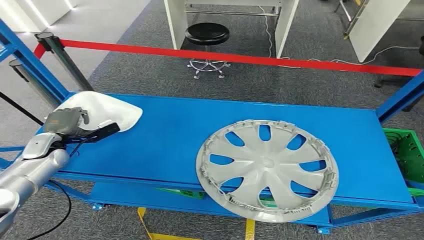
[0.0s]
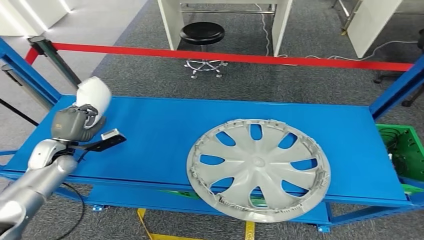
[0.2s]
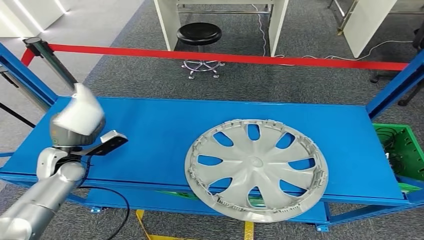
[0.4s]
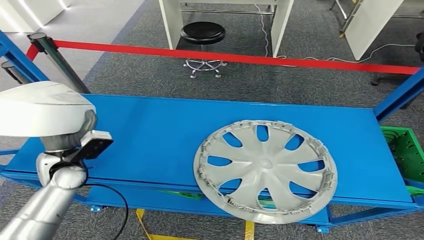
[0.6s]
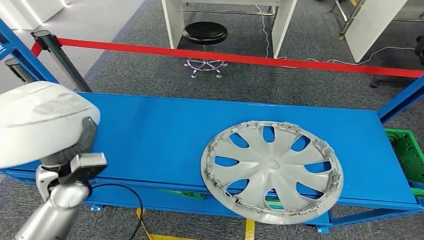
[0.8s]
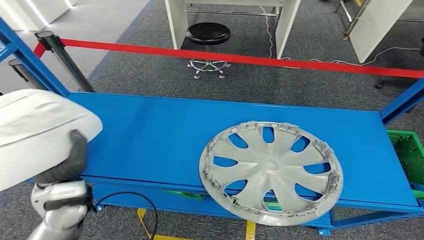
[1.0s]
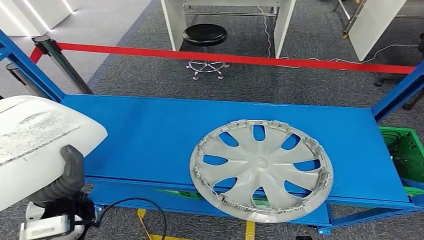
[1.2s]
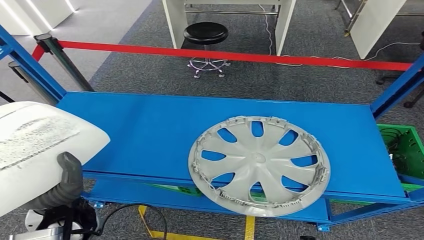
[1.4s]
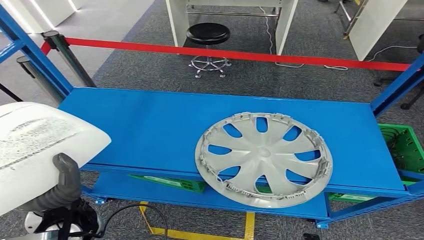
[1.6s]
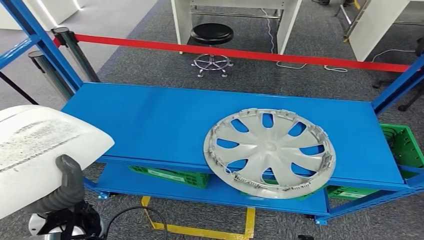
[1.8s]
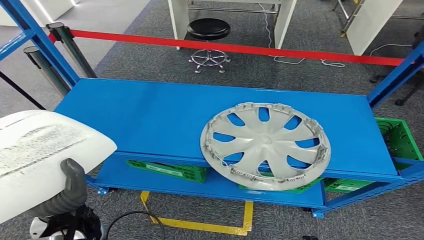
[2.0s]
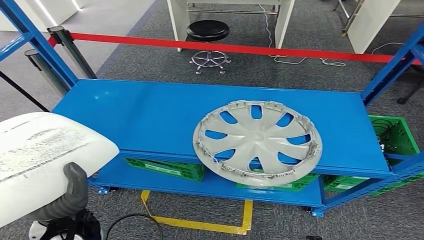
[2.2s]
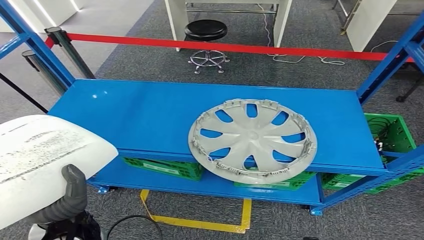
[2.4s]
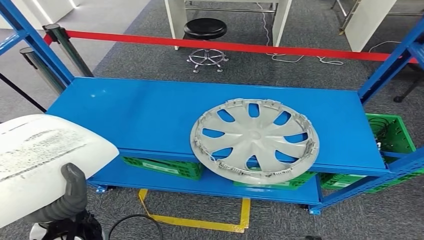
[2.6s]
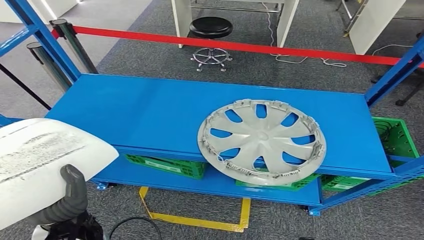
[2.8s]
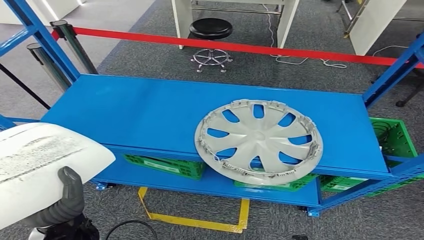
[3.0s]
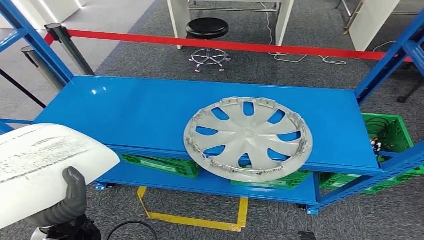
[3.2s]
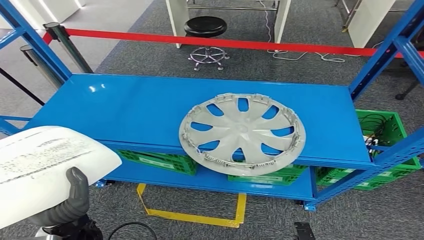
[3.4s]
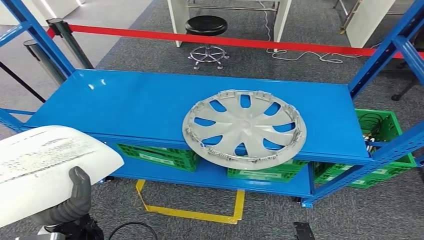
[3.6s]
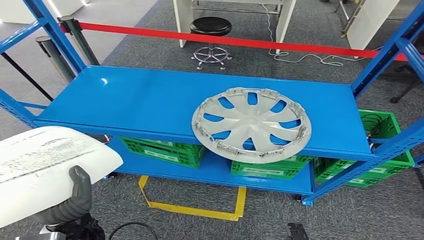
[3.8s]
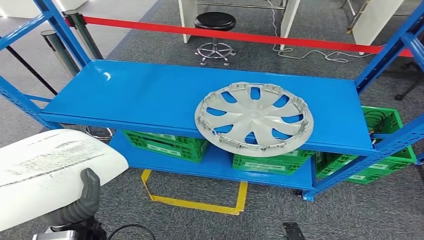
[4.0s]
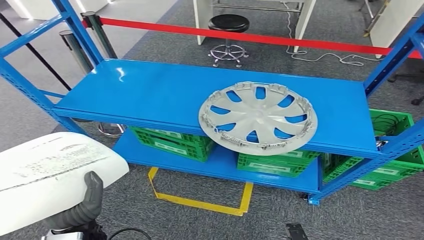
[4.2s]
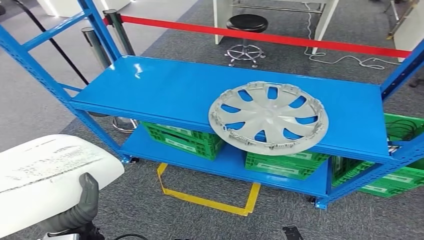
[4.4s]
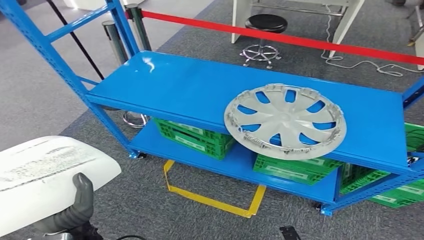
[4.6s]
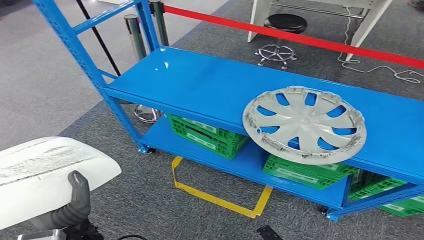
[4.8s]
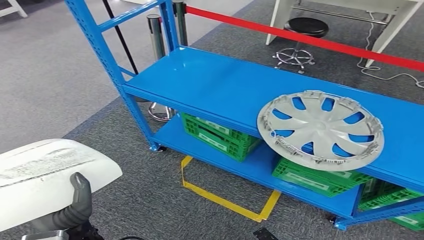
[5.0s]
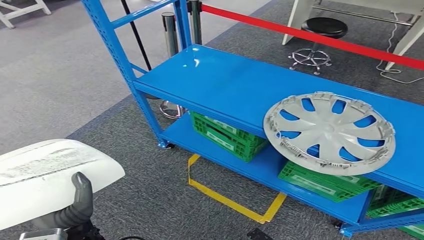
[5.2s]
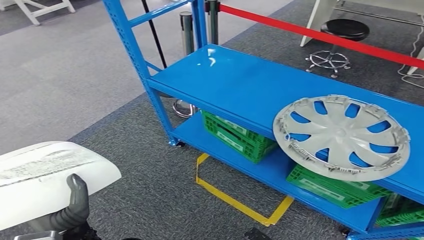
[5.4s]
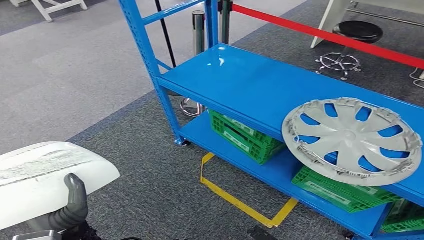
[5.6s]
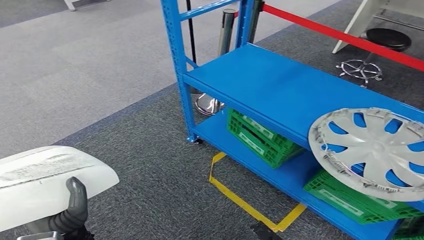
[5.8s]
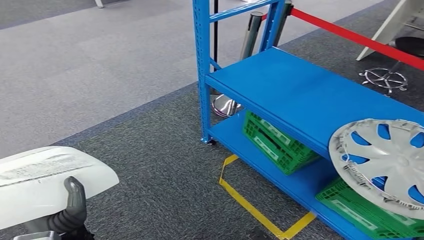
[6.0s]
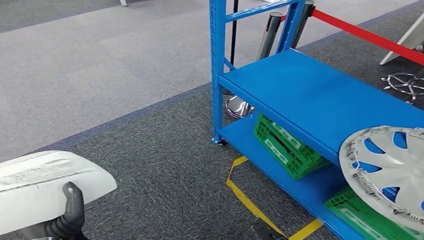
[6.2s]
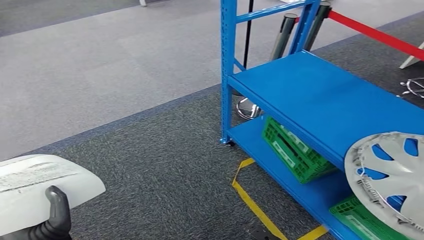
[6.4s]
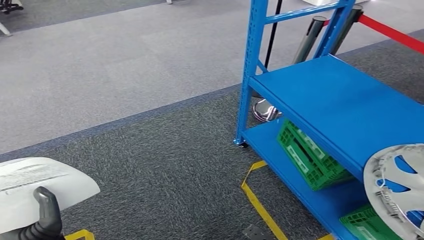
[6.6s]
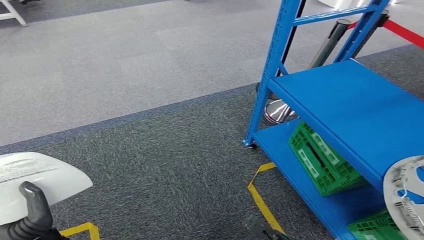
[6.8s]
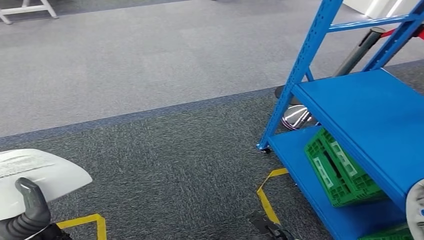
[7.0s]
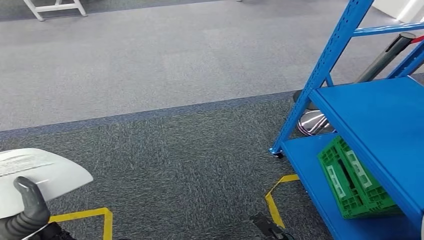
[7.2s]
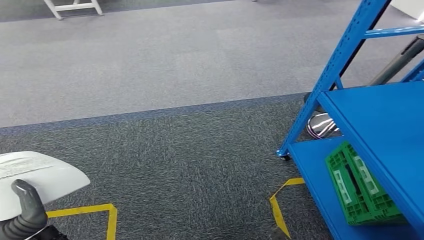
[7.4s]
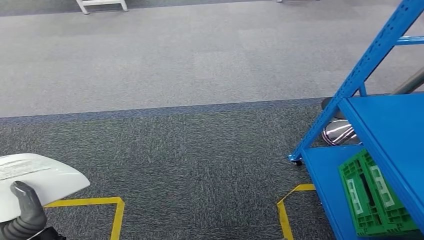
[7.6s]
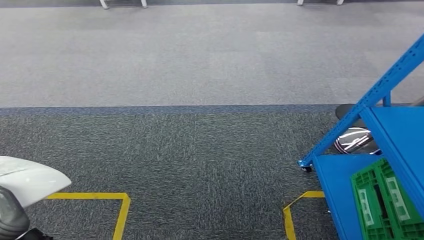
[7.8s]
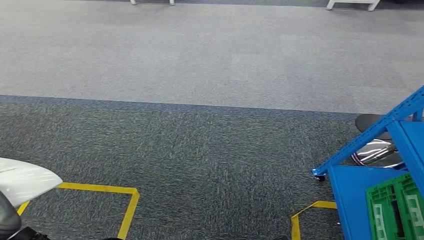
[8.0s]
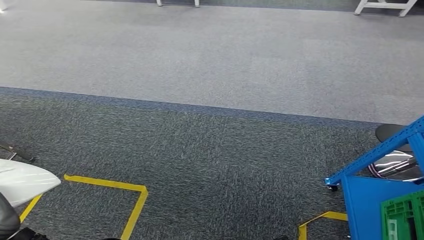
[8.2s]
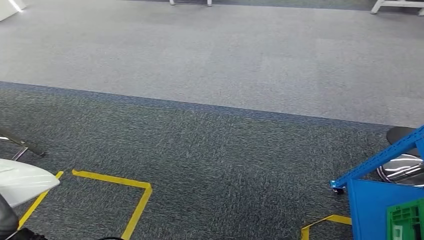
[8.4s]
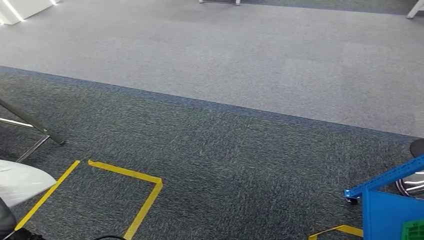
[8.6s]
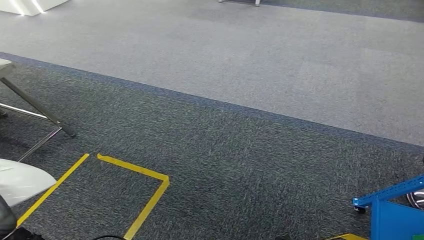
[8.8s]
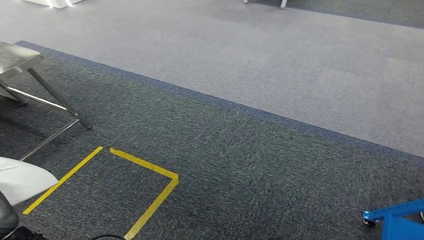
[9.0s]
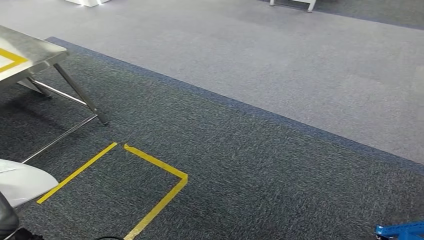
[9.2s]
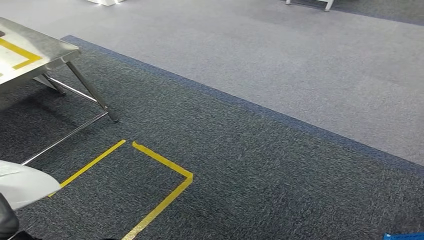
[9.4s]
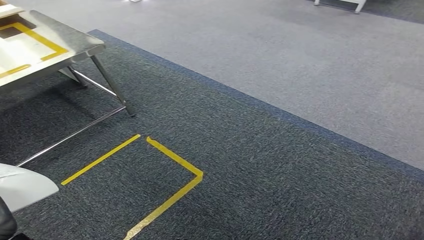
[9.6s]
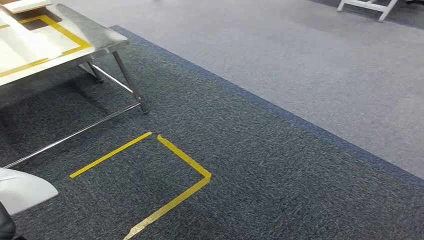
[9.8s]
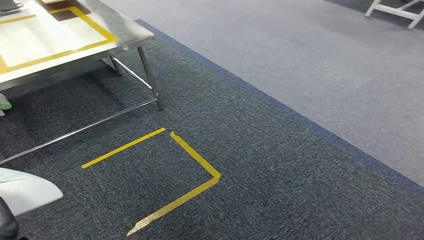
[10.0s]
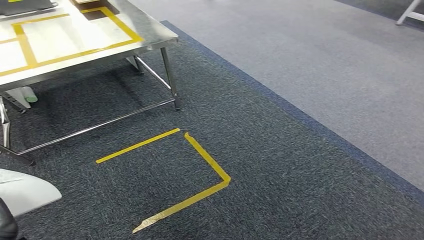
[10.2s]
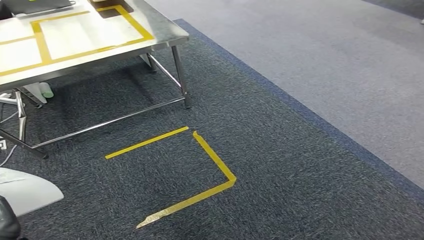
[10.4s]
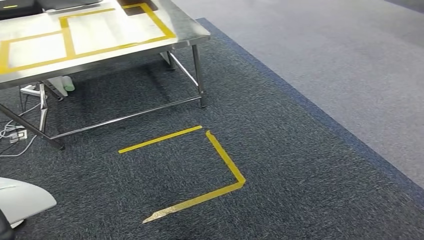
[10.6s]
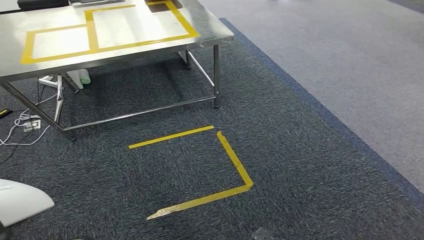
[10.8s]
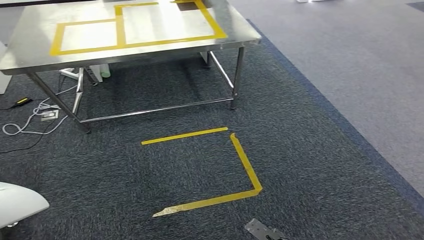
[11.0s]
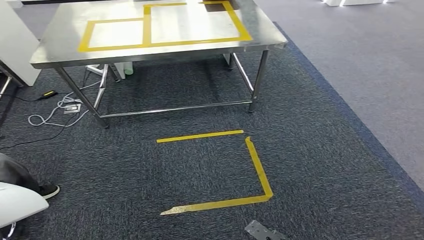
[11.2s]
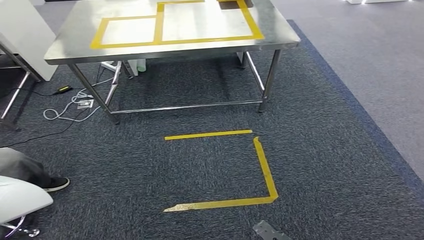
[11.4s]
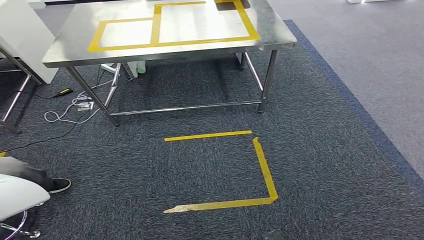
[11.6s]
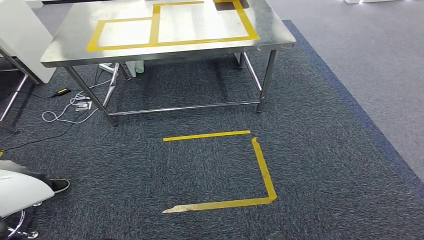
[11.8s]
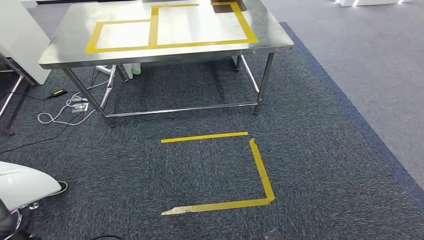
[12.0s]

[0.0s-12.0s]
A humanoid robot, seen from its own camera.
Step, 0.0s to 3.0s: Pick up the small parts from the shelf.

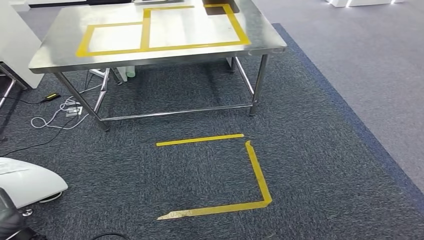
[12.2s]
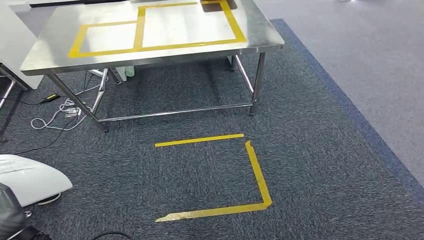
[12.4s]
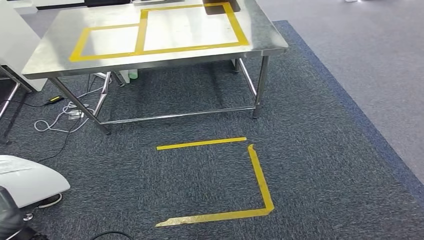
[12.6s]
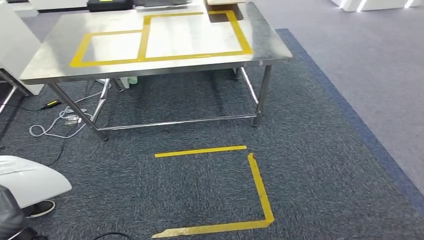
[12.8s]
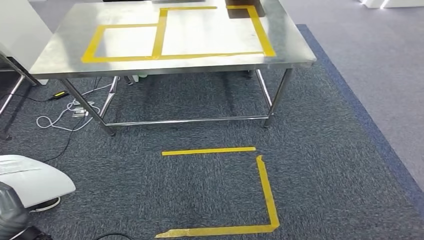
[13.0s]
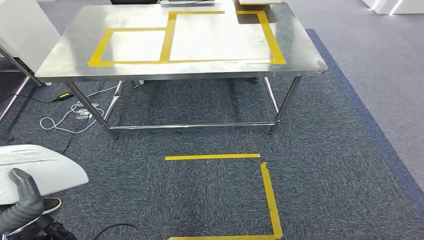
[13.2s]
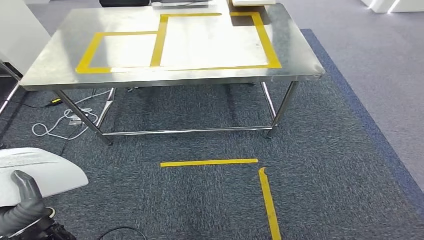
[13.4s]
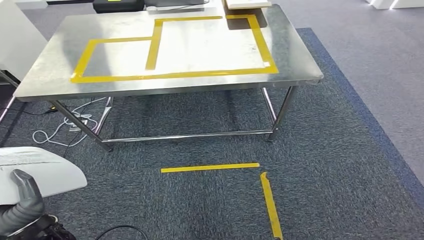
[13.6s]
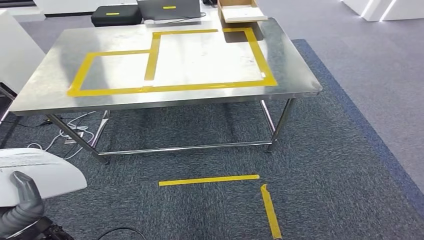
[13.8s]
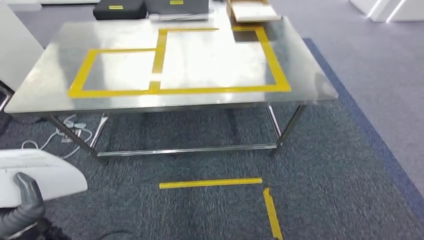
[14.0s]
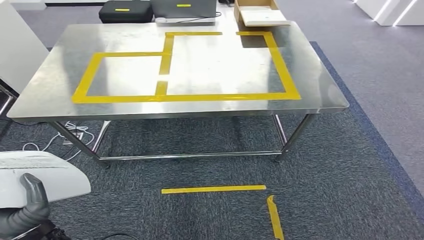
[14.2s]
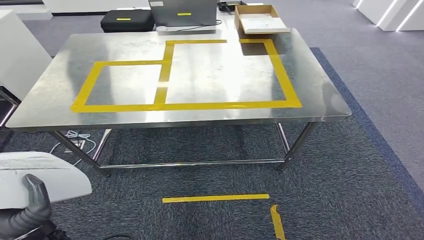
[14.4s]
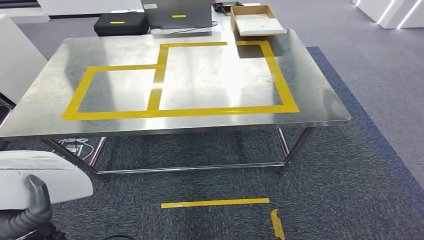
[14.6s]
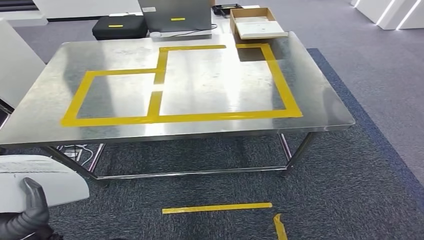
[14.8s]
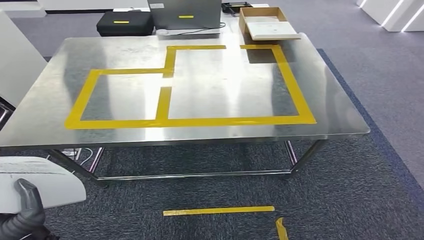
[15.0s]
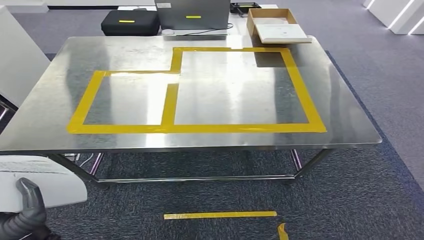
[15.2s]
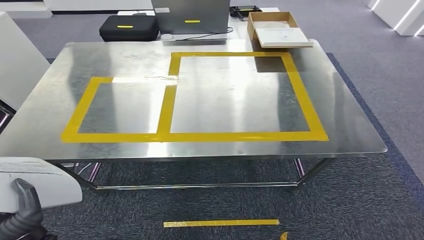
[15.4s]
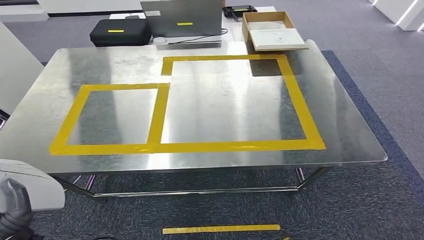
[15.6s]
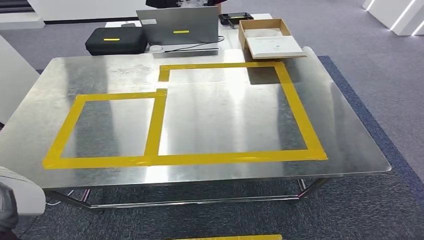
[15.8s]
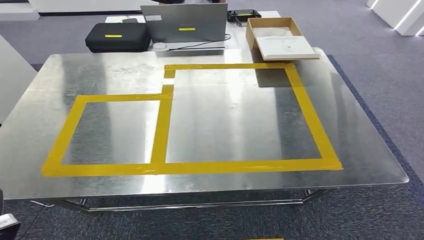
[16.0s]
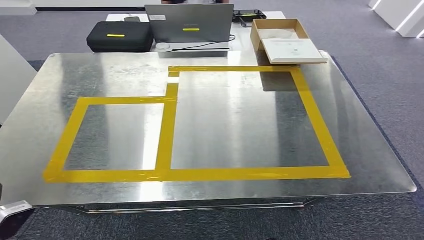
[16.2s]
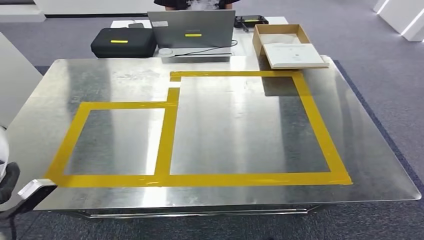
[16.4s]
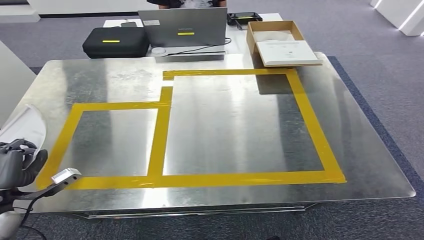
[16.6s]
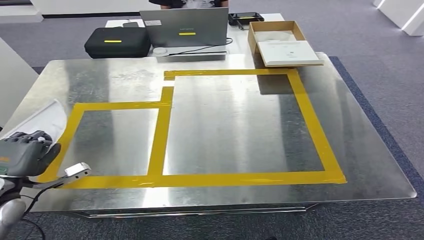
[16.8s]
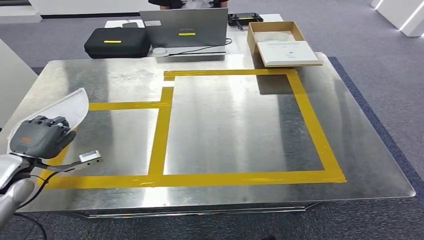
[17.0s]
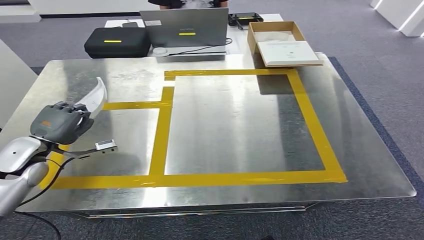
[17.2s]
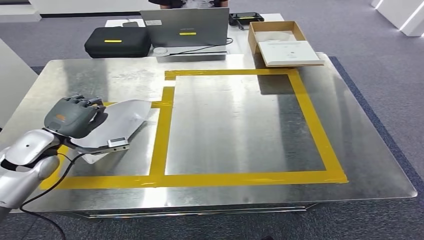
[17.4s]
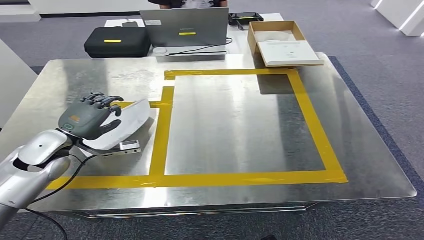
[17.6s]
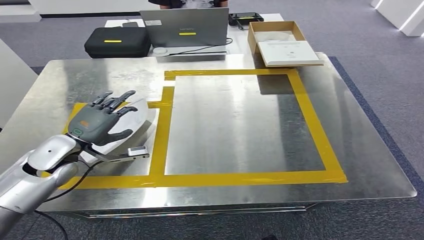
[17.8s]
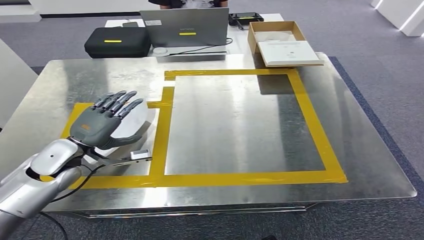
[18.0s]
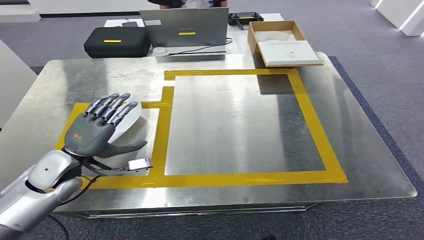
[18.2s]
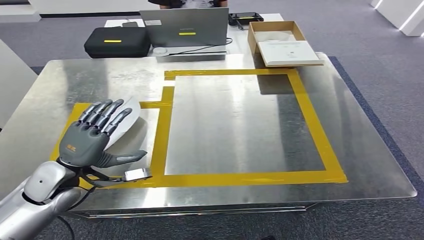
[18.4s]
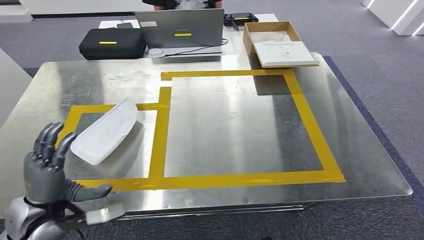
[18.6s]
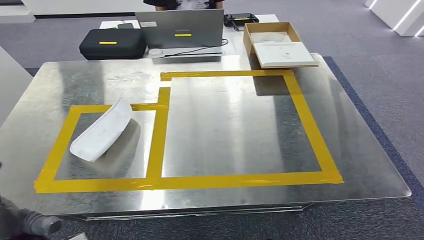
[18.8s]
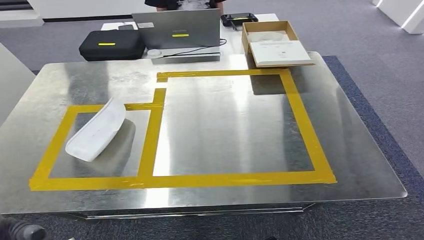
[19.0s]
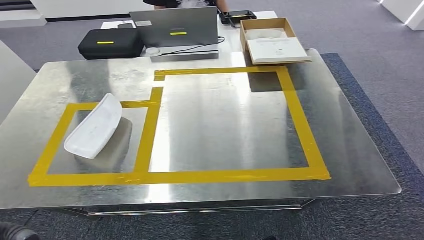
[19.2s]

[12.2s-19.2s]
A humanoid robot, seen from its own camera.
Step, 12.2s to 14.4s: Move the small parts to the workbench.
Step, 14.6s to 17.6s: Insert the small parts into the corresponding holes on the workbench.
